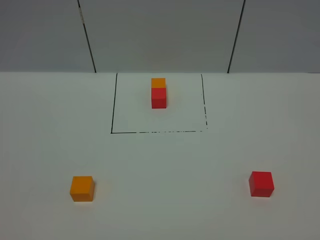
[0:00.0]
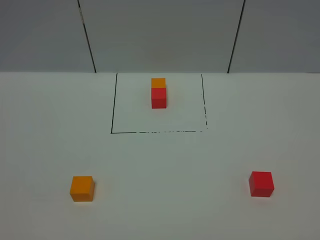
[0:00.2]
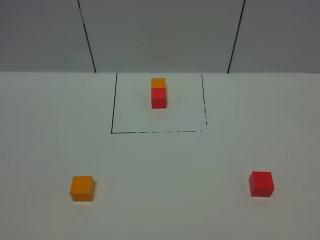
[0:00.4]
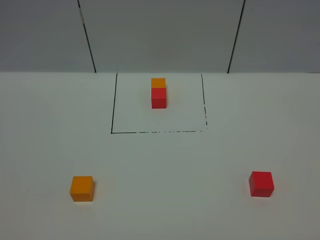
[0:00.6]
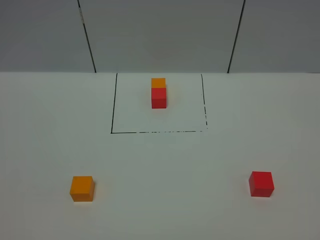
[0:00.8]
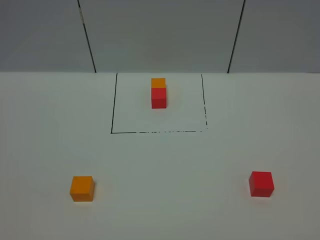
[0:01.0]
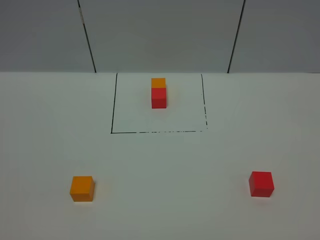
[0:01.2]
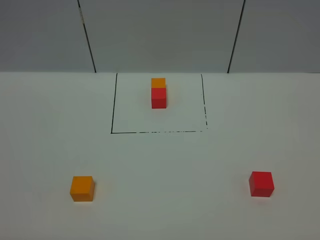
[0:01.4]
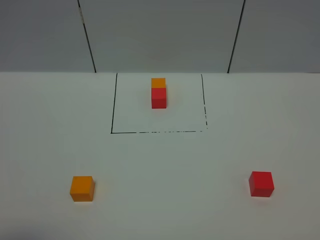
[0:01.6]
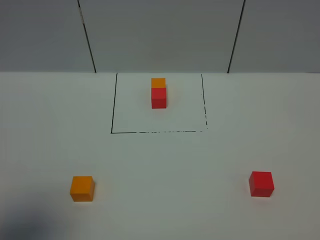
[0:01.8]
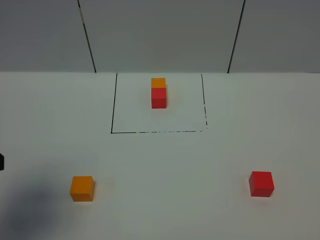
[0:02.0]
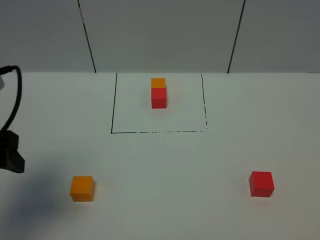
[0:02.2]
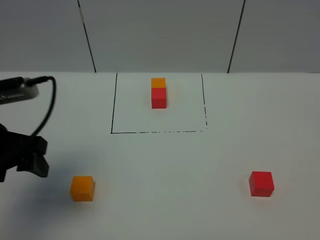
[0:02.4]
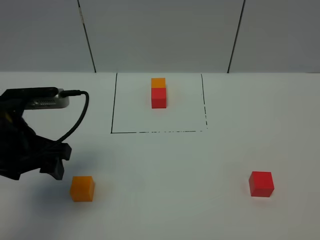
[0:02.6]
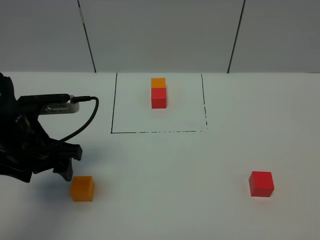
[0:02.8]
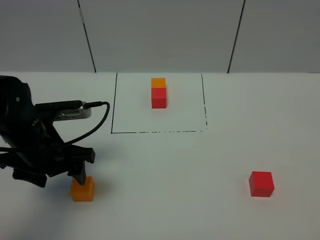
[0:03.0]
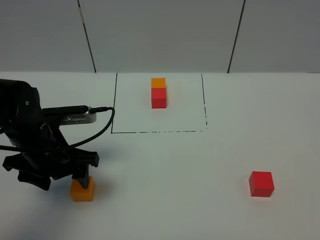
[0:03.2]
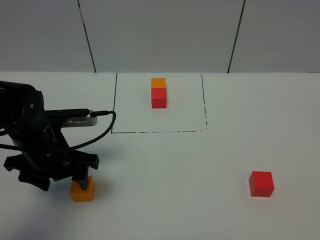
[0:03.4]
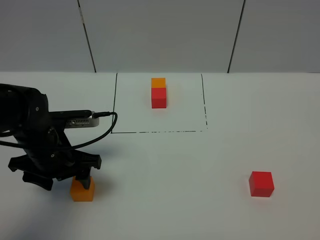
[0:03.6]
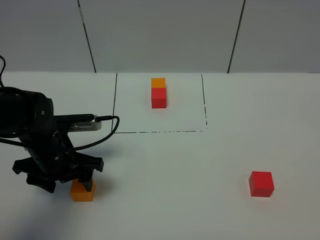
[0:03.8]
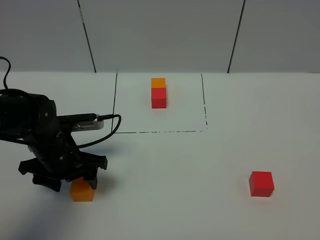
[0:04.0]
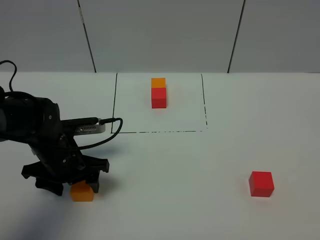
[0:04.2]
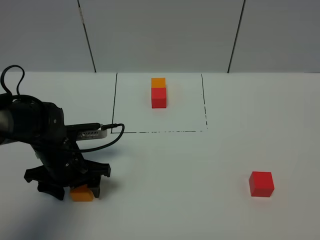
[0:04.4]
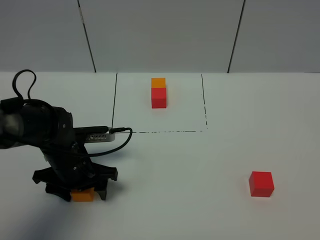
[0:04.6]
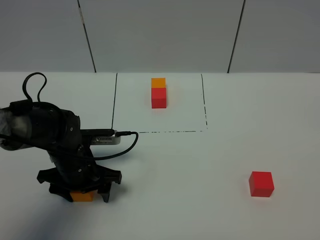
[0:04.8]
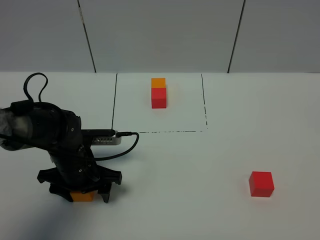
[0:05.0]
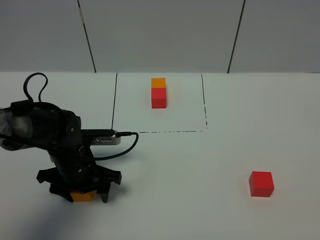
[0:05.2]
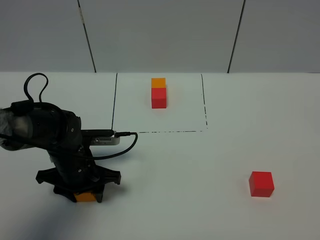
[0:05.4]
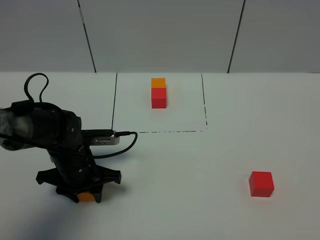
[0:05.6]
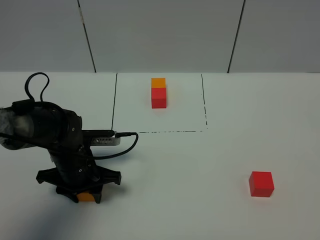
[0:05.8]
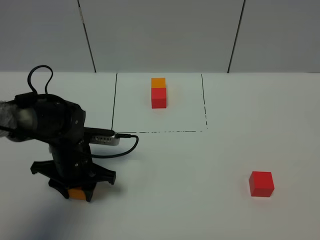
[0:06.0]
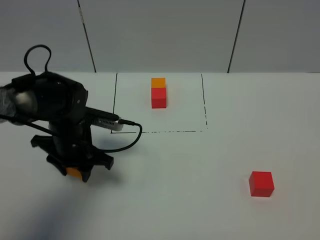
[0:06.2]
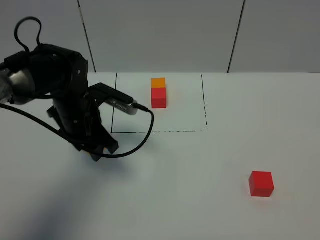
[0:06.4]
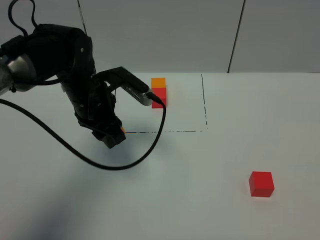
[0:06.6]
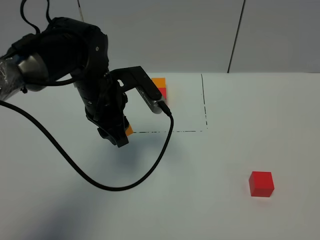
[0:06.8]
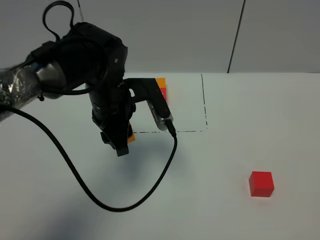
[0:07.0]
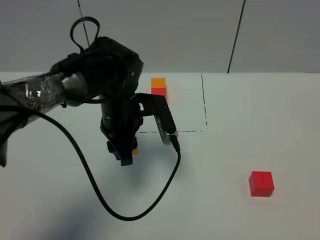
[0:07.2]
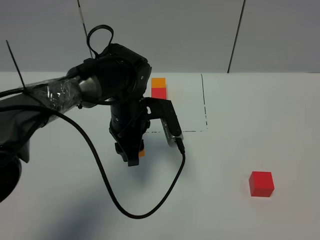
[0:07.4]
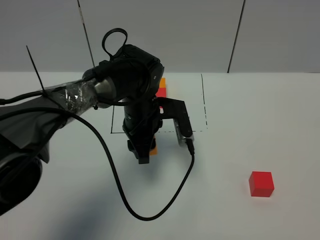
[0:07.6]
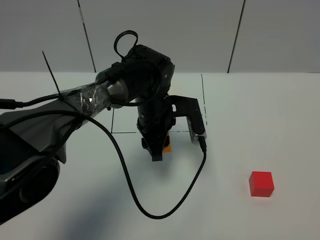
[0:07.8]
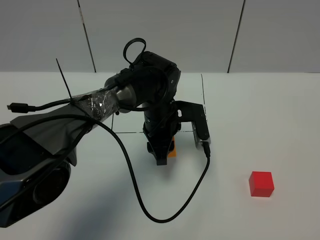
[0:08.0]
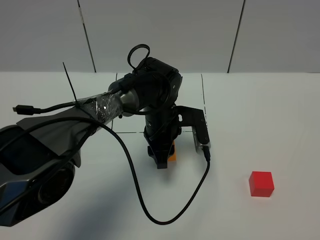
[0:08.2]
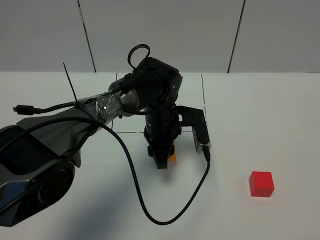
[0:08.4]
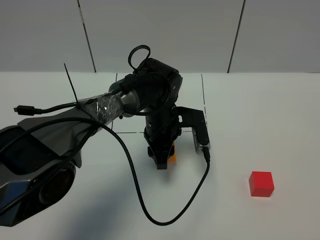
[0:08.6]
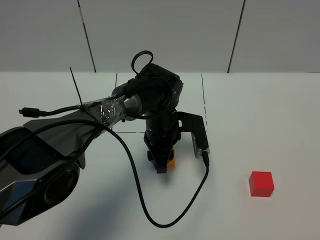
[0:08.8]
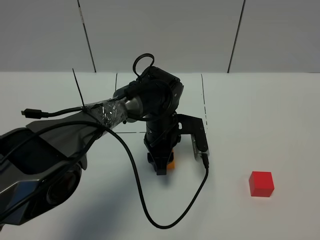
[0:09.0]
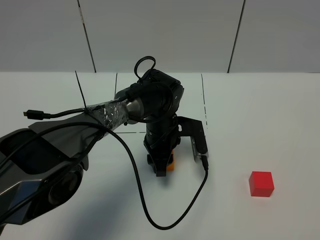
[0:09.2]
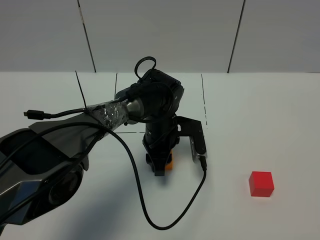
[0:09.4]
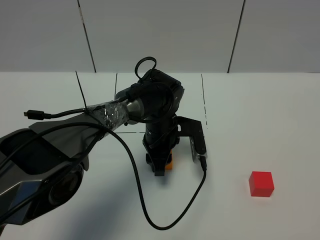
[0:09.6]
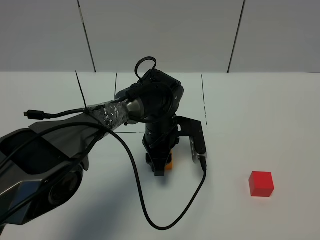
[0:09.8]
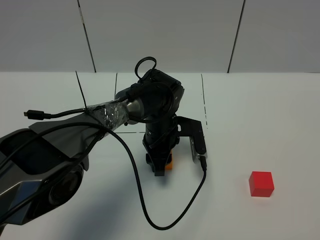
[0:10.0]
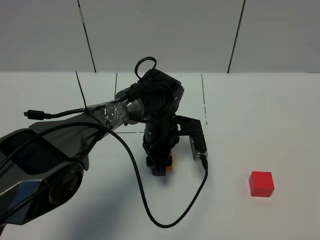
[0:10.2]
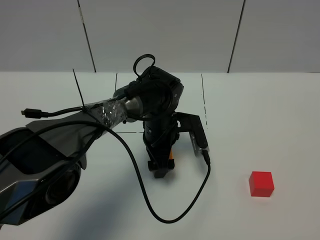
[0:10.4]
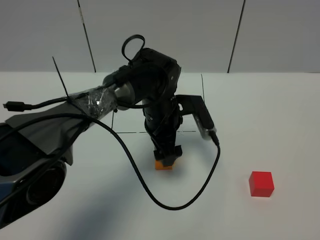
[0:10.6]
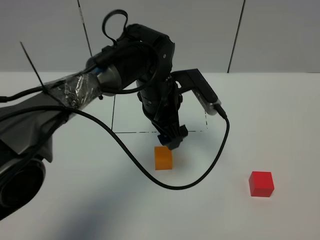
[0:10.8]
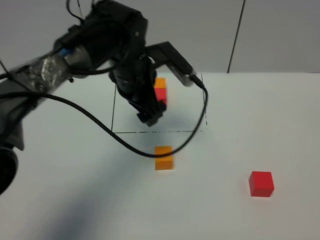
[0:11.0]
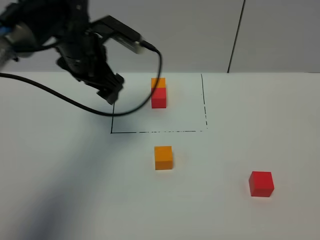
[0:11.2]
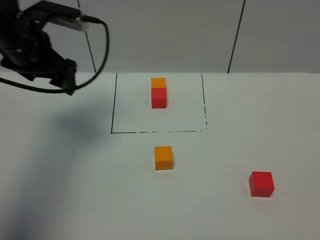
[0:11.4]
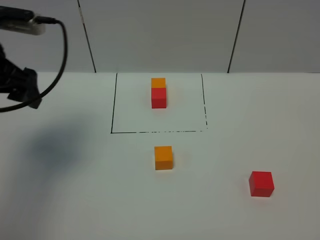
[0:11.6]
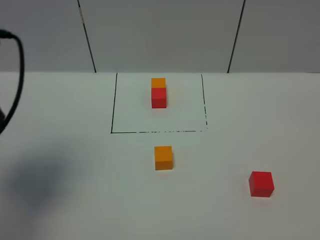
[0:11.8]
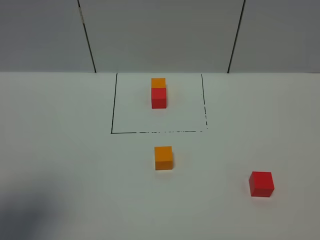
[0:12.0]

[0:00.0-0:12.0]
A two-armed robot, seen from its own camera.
Task of the whole recording: According to the building block template in front, assemble the scattered blocks together.
Step, 0:01.8 to 0:10.4: Put the orange cube in the center of the table.
0:01.6 to 0:03.0: The left gripper heads forward and downward, covering roughly 25 cm.
0:03.0 to 0:04.4: The left gripper goes some 10 cm downward.
0:04.4 to 0:06.0: The left gripper closes.
0:06.0 to 0:07.6: The left gripper travels to the right and forward by about 15 cm.
0:07.6 to 0:09.0: The left gripper moves downward, approximately 5 cm.
0:09.0 to 0:10.4: The left gripper opens.
0:10.4 to 0:12.0: The left gripper goes some 50 cm to the left, backward and upward.

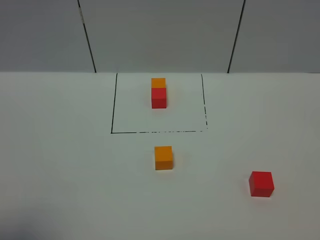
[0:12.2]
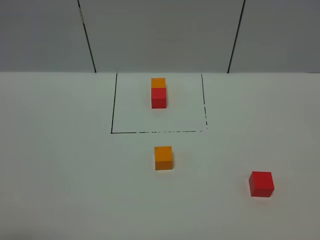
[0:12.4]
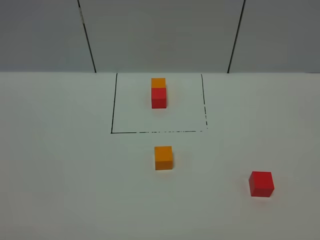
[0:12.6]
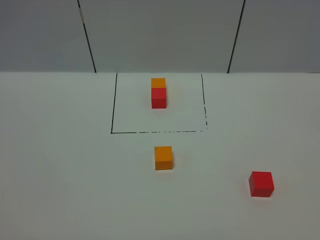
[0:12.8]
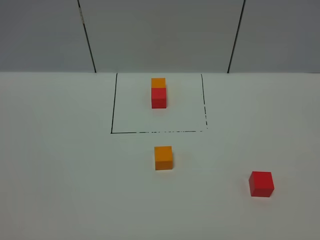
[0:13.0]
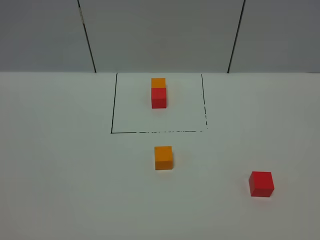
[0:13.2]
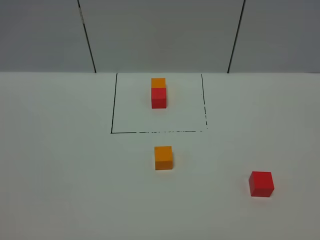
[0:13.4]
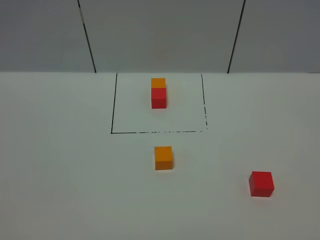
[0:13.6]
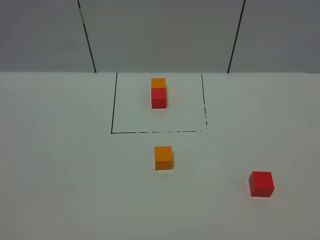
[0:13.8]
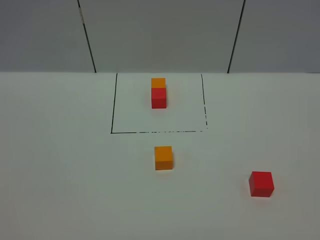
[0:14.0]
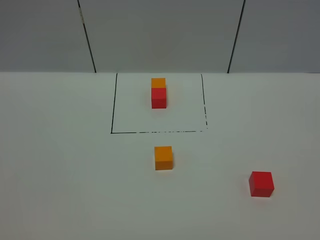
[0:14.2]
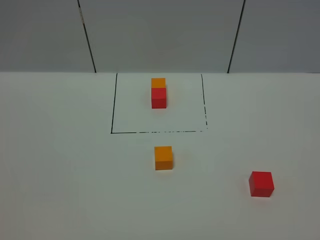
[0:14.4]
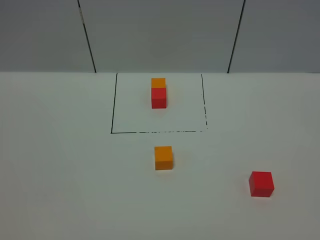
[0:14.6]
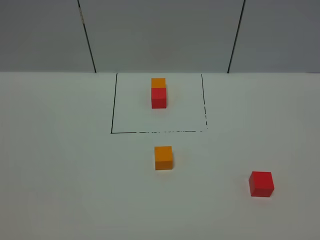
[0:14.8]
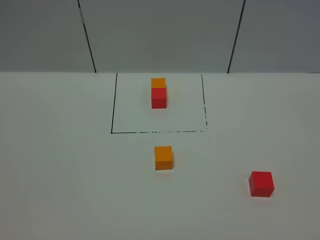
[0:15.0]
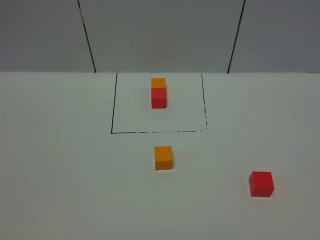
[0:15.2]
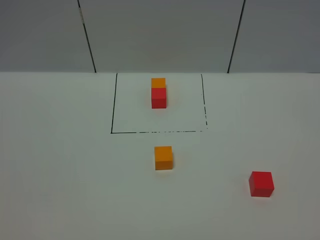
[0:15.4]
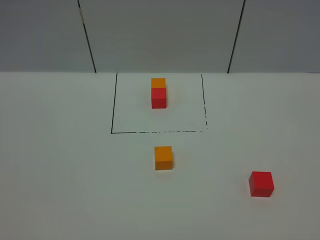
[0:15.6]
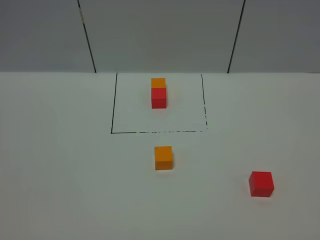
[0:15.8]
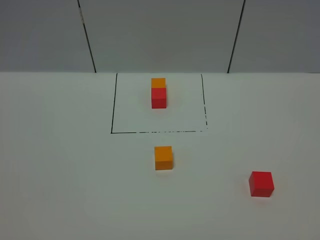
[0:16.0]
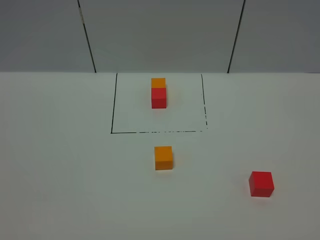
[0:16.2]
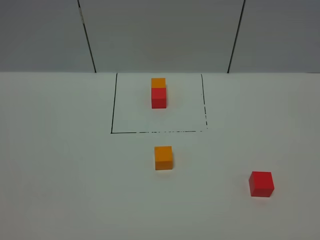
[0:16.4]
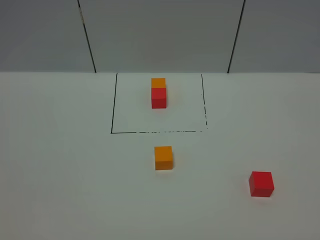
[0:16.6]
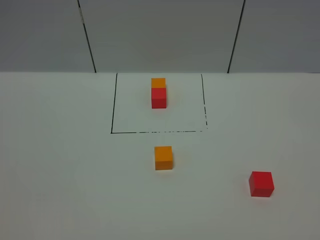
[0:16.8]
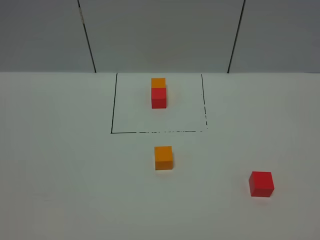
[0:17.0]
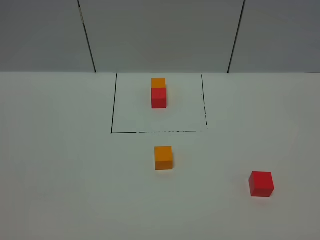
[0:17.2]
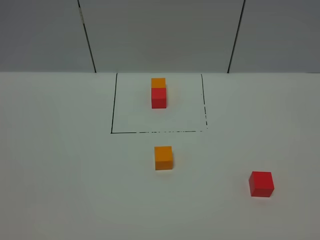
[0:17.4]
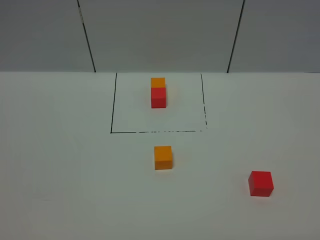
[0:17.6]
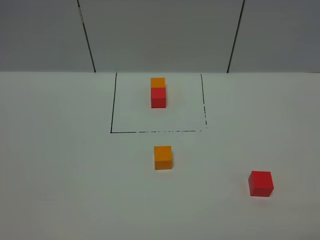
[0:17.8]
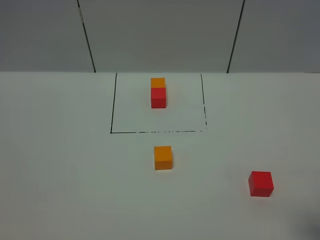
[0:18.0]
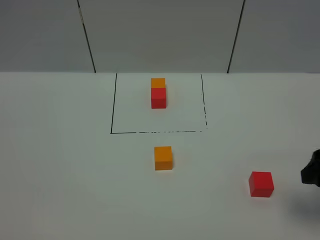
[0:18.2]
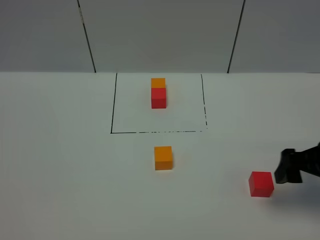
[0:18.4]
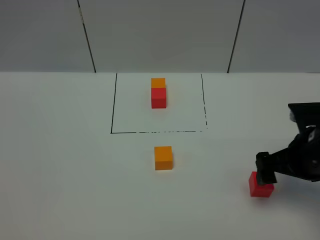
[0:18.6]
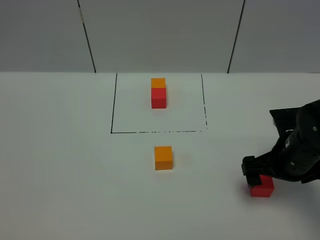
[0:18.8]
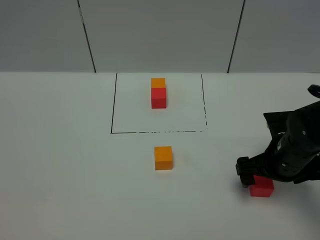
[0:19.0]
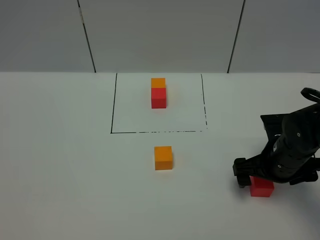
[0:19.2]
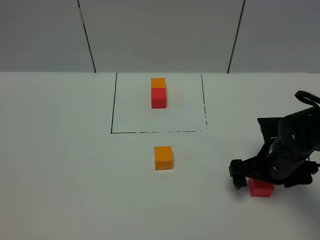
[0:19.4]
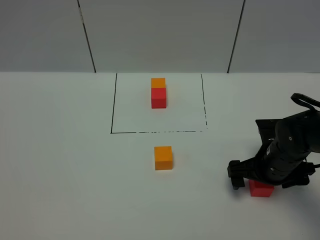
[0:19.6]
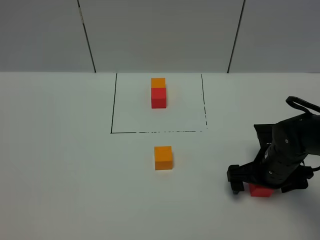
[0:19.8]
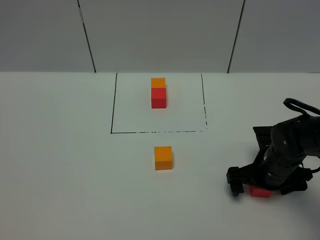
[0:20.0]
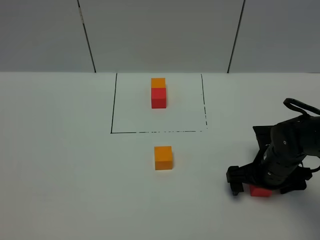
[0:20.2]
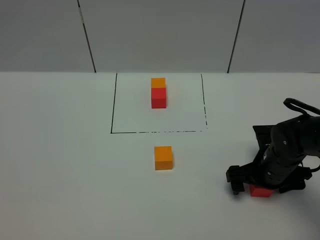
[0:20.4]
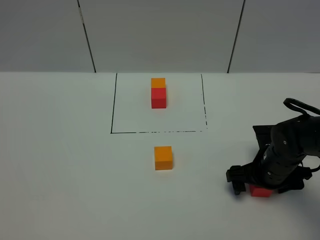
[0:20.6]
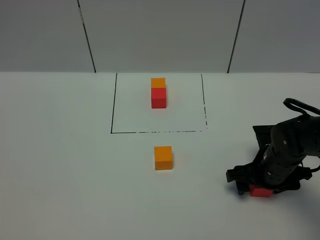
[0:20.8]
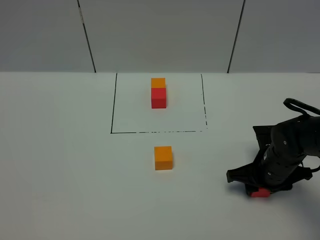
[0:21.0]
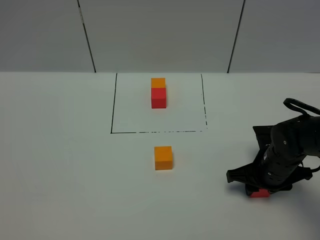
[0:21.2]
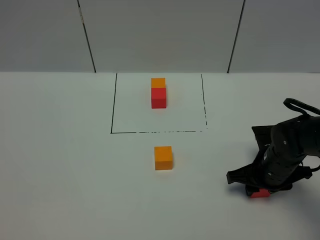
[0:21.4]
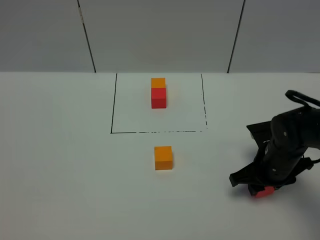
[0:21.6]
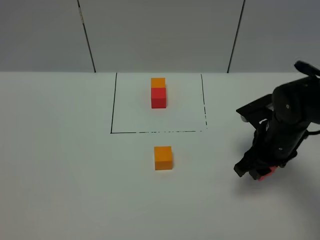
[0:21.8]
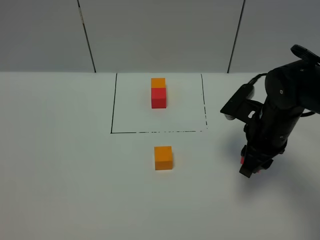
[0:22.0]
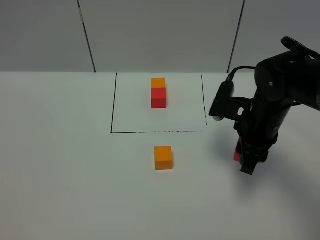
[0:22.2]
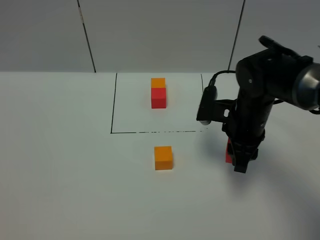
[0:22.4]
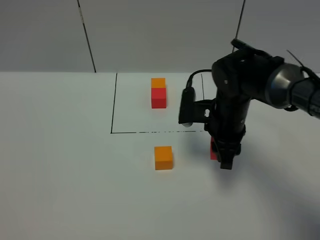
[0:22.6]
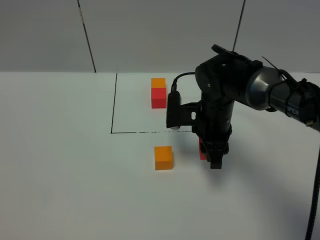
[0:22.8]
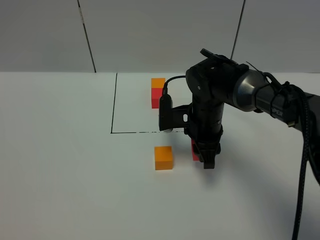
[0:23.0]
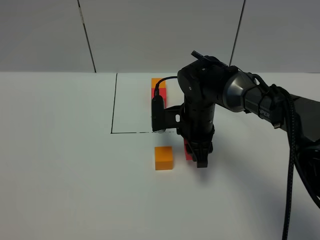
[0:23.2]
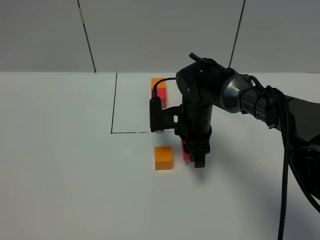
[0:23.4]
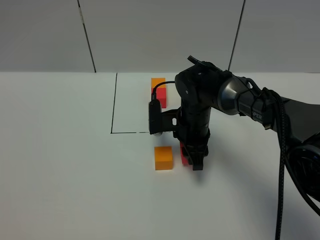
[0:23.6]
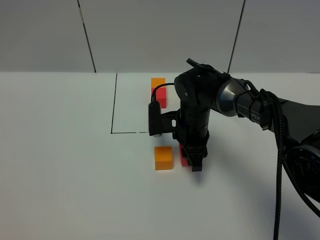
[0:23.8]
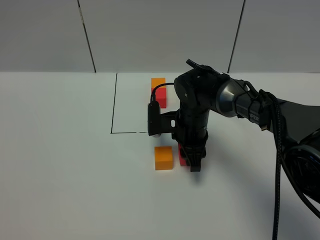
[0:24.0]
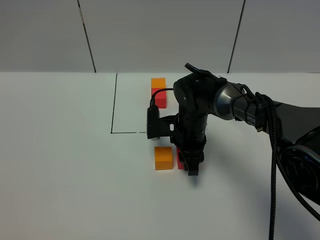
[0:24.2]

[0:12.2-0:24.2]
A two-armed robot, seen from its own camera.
Task of the whole recording: According to the building block template in front, assemble the scattered blocks together.
0:12.2 to 0:13.8: The left gripper shifts some 10 cm downward and backward.
0:13.8 to 0:16.6: Neither gripper changes place.
0:16.6 to 0:18.2: The right gripper moves forward, roughly 20 cm.
0:18.2 to 0:19.8: The right gripper travels downward, to the left and forward by roughly 20 cm.
0:19.8 to 0:21.2: The right gripper closes.
0:21.2 to 0:22.6: The right gripper shifts approximately 15 cm to the left, upward and forward.
0:22.6 to 0:24.2: The right gripper travels downward and to the left by some 10 cm.
